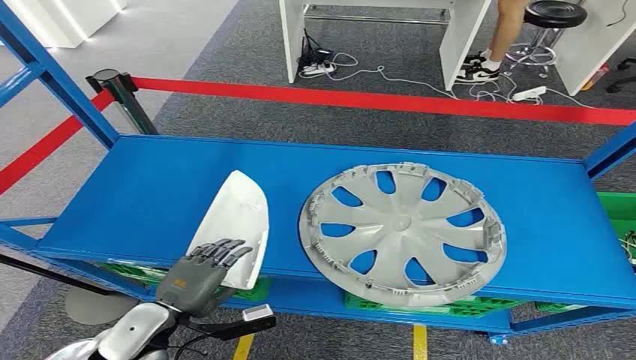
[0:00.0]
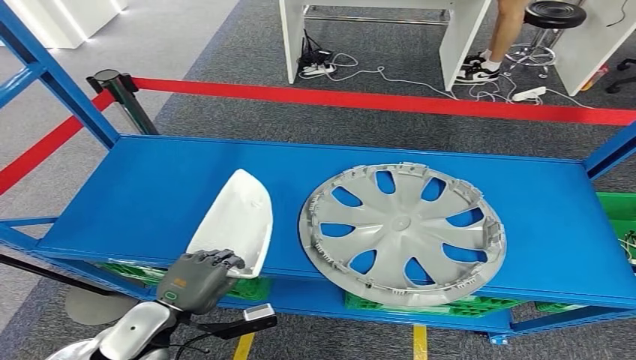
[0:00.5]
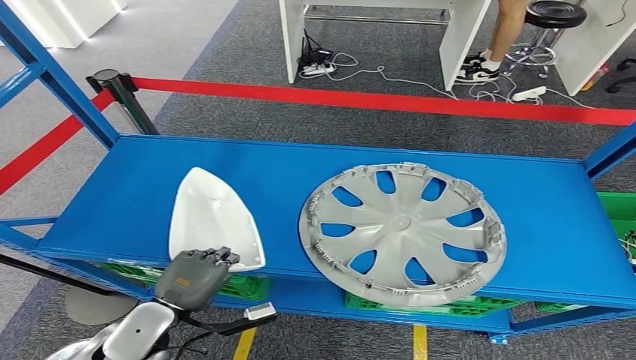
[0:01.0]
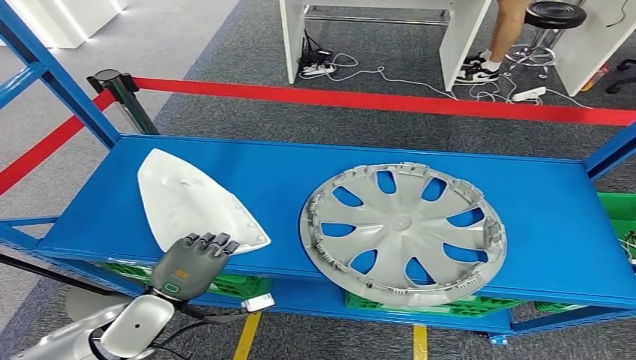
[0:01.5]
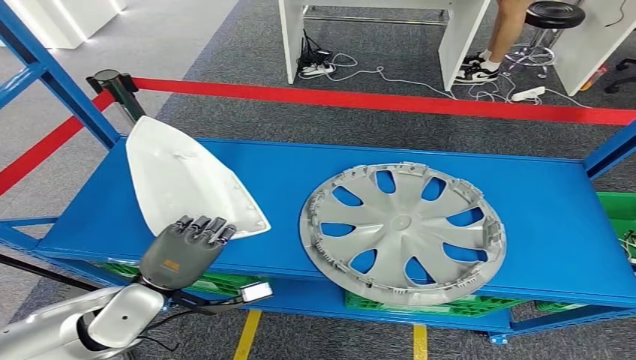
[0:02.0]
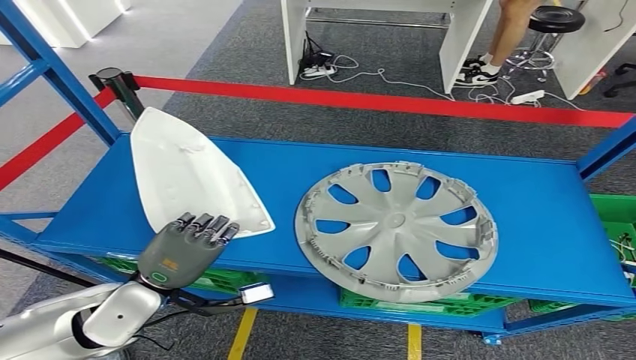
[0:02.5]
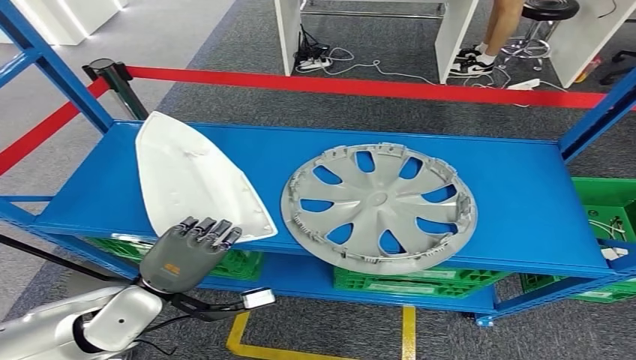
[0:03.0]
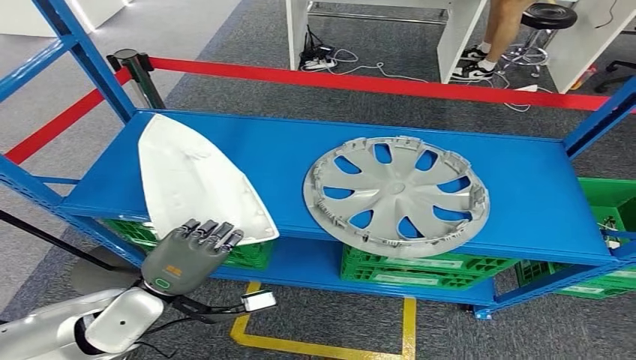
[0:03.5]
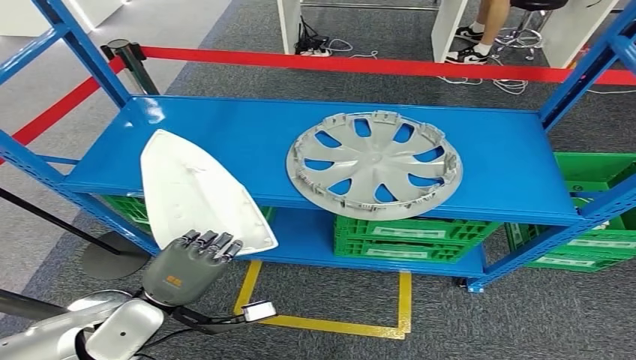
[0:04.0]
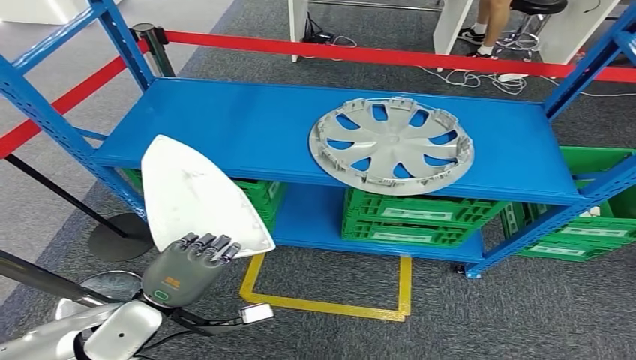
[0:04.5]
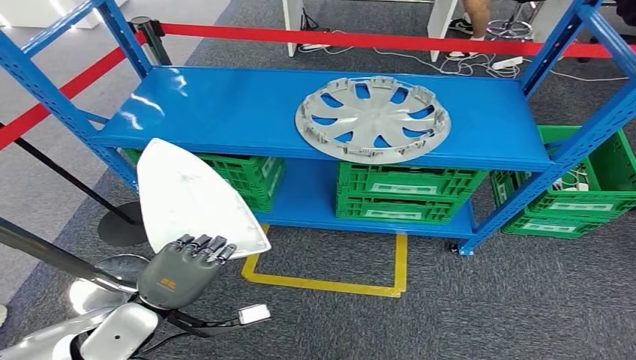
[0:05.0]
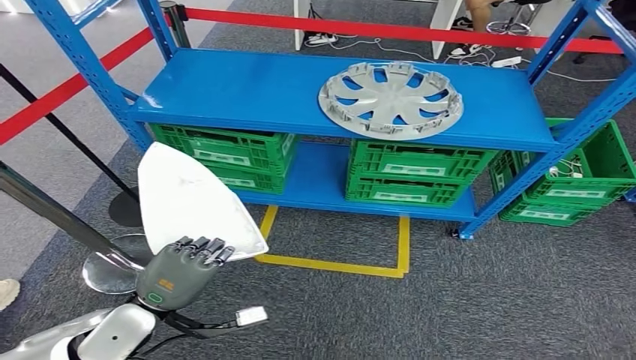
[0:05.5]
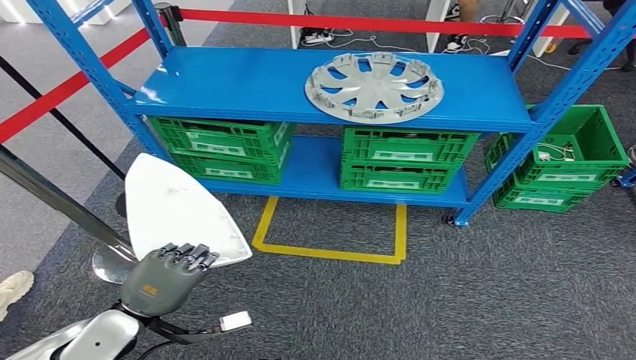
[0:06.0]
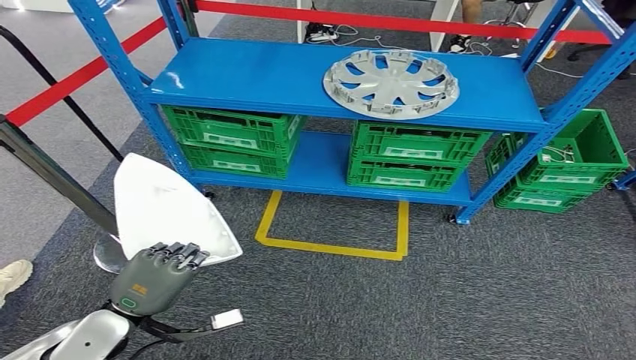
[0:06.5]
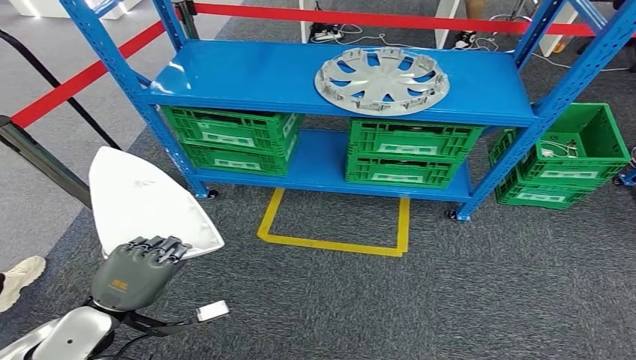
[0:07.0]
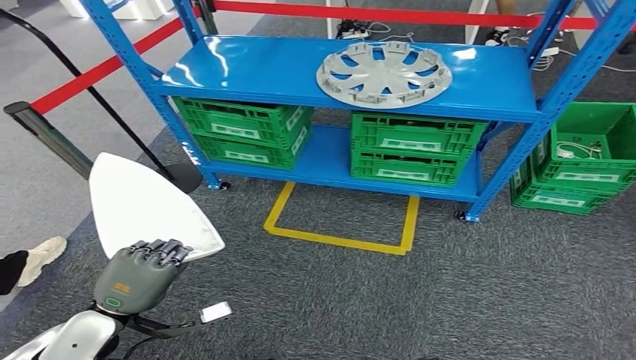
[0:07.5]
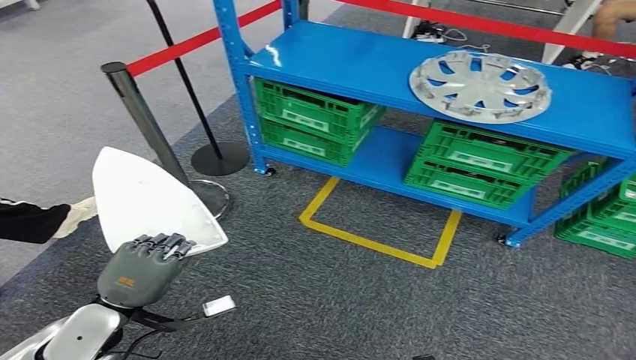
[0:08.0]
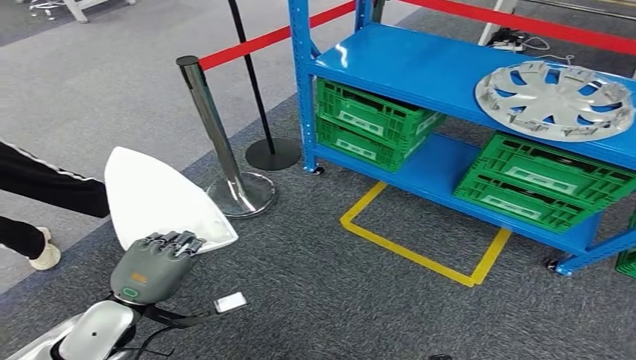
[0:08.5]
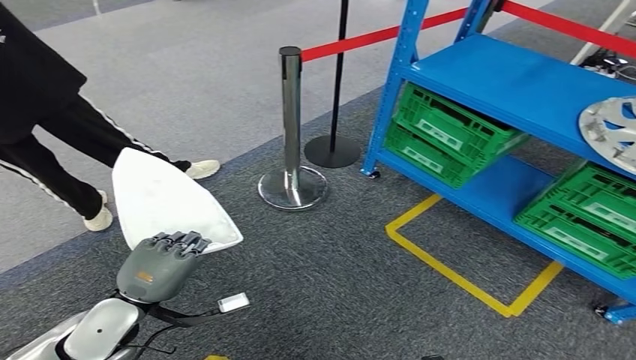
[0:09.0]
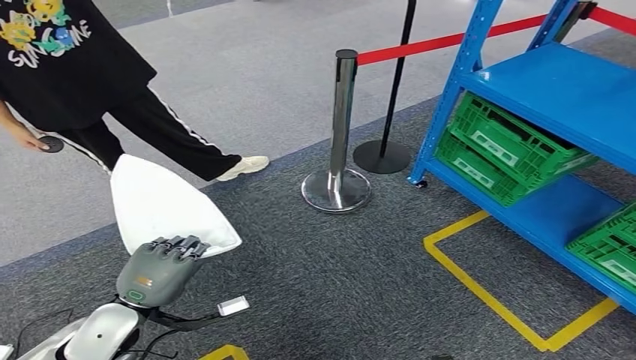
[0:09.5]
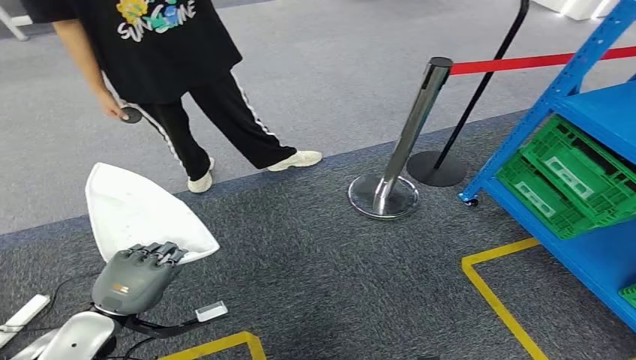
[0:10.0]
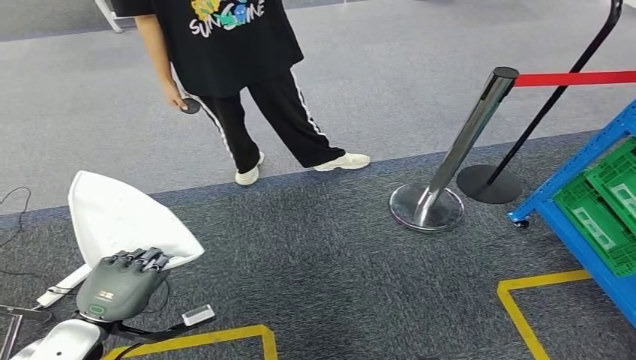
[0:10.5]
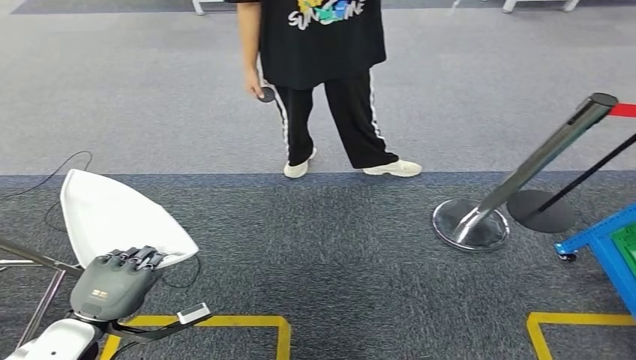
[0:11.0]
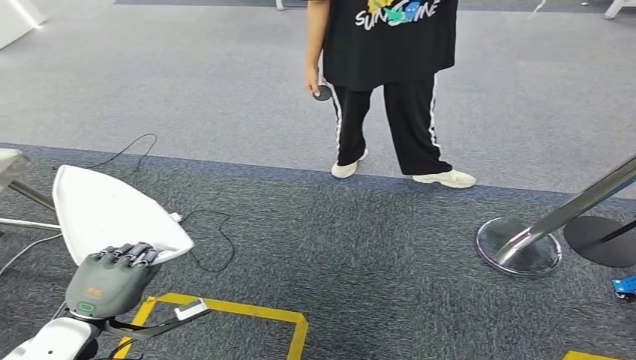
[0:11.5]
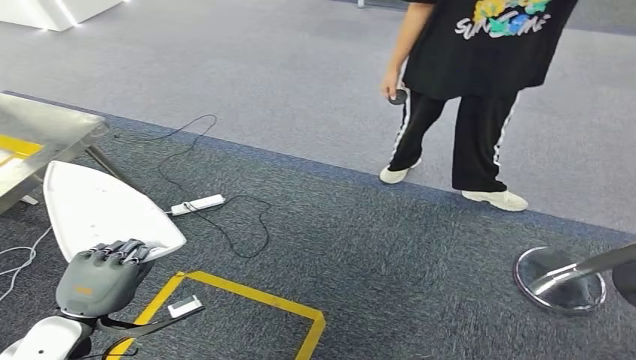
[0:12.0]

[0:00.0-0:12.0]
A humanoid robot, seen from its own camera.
Step, 0:00.0 to 0:04.0: Pick up the small component from the shelf.

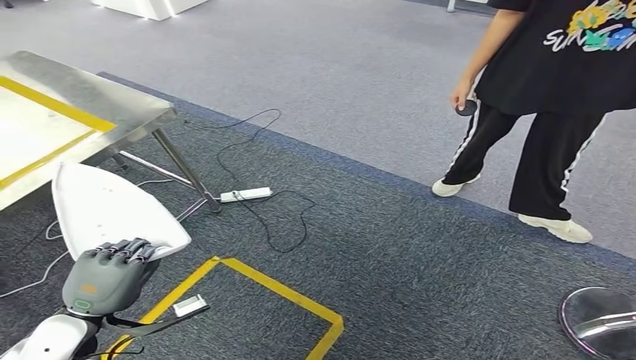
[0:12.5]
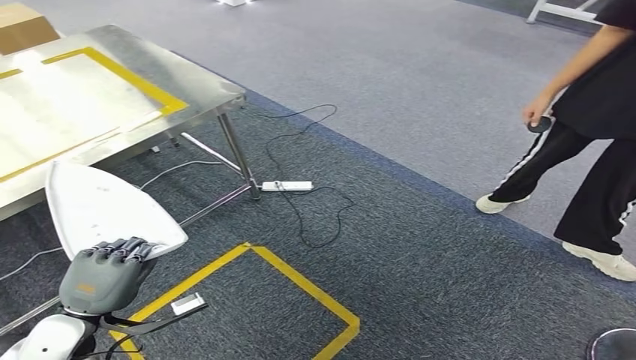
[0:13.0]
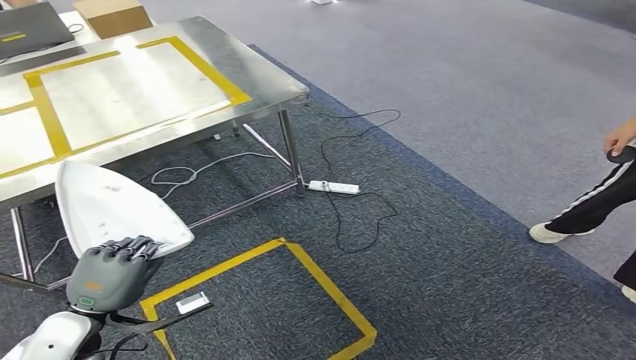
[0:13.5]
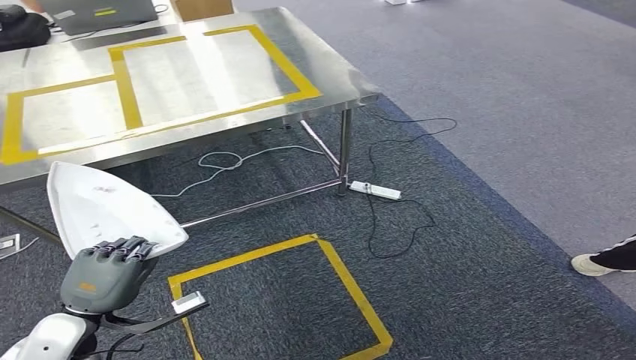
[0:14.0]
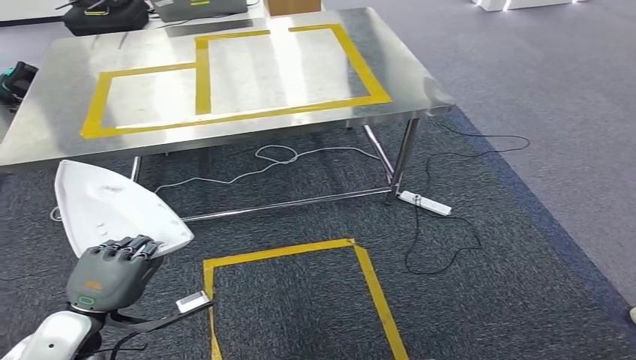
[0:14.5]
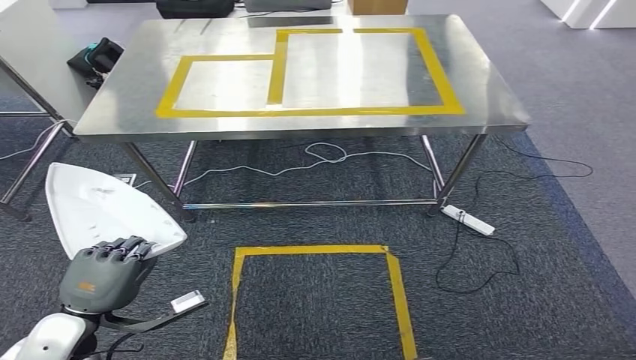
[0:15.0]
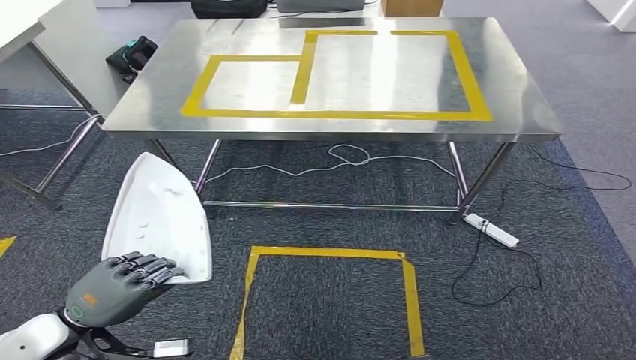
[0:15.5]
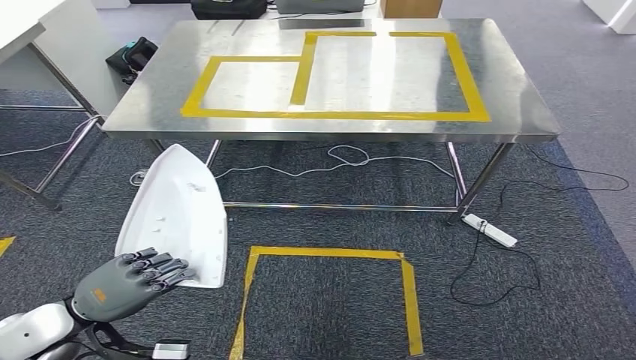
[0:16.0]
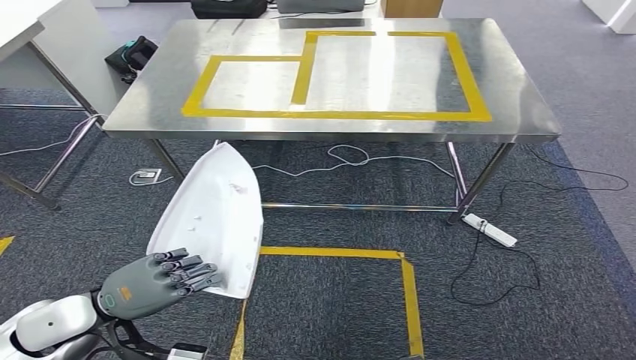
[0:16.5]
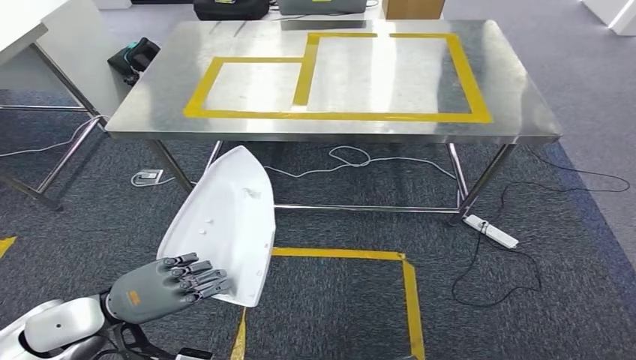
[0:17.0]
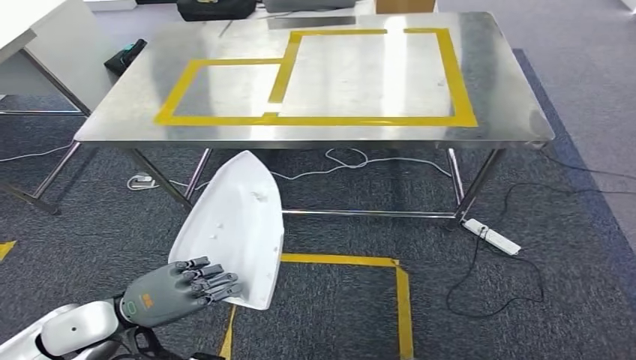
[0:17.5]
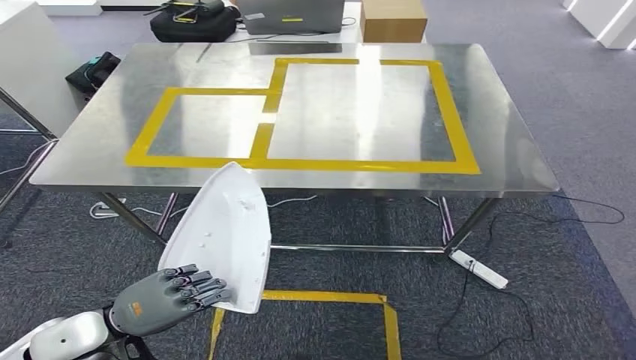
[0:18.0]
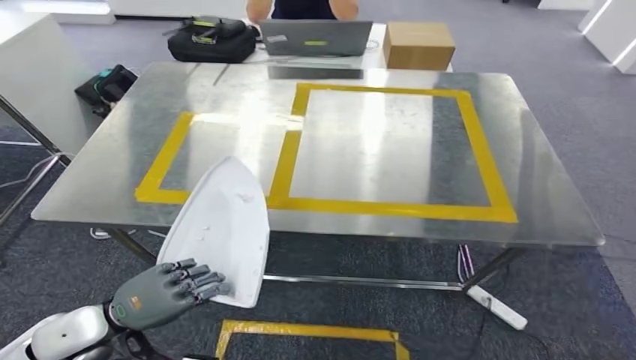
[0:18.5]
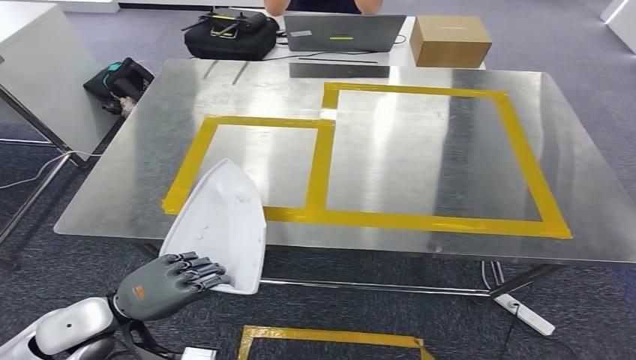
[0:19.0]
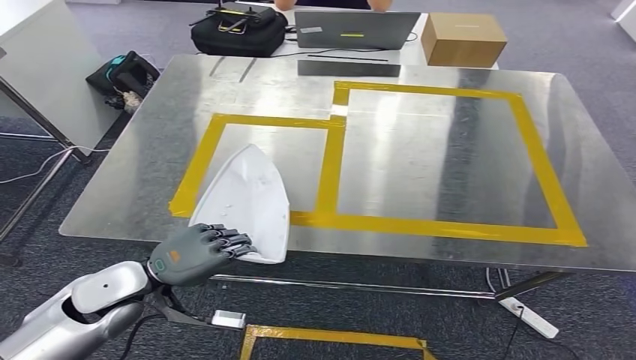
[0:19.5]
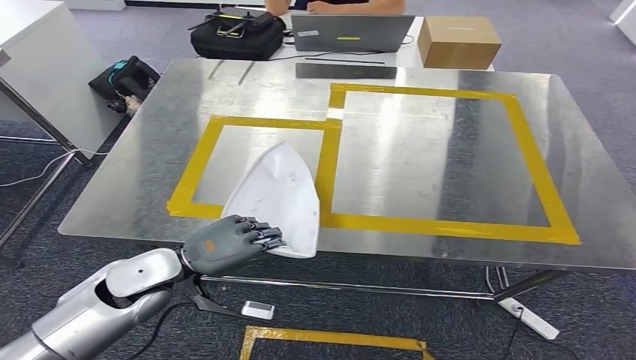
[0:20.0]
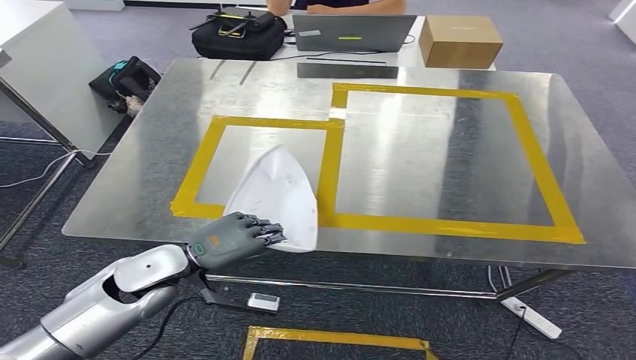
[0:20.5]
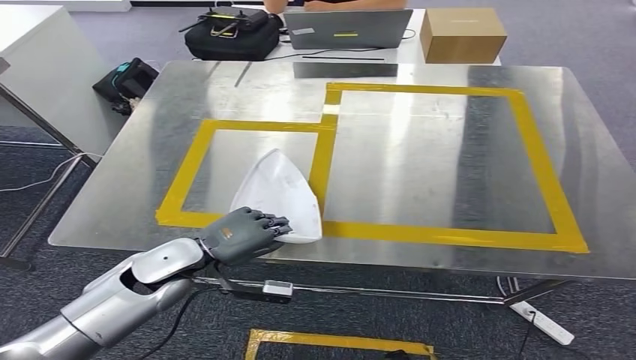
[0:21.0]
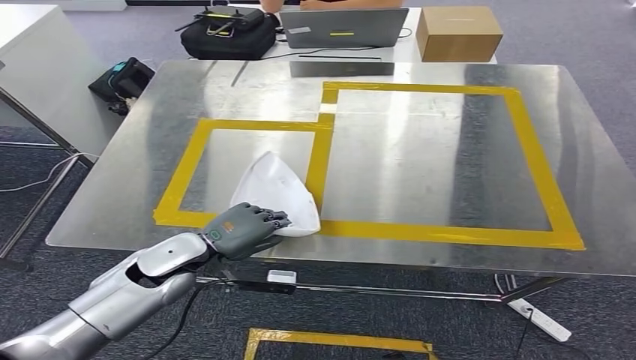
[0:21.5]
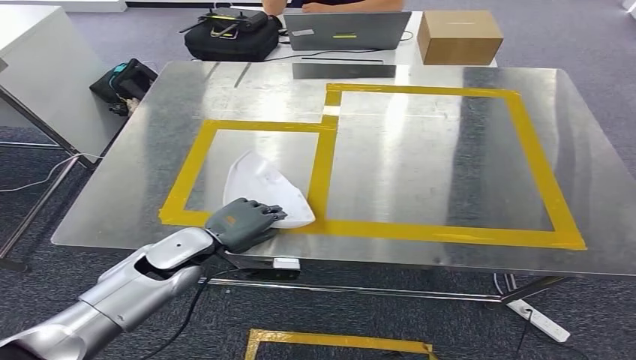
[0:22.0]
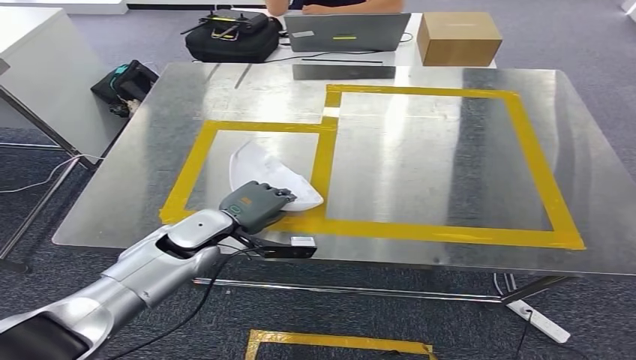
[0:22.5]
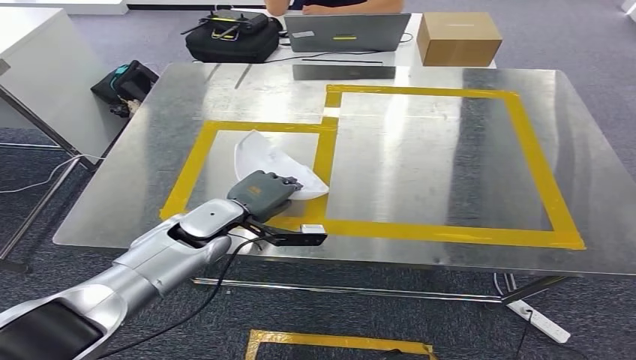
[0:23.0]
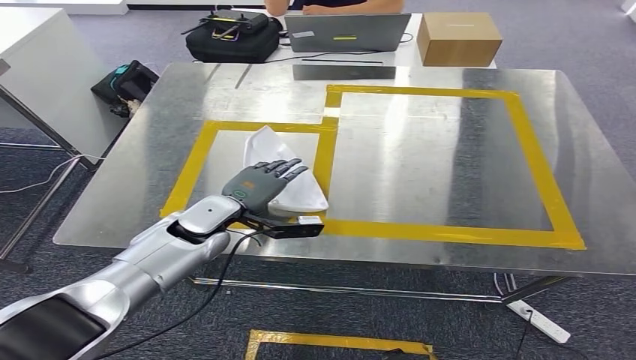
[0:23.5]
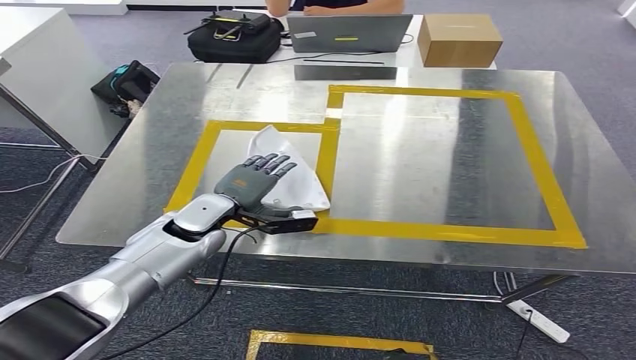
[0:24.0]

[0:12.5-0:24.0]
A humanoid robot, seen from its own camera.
Step, 0:12.5 to 0:16.5: Move the small component to the workbench.
0:22.0 to 0:24.0: The left hand moves forward, approximately 5 cm.
